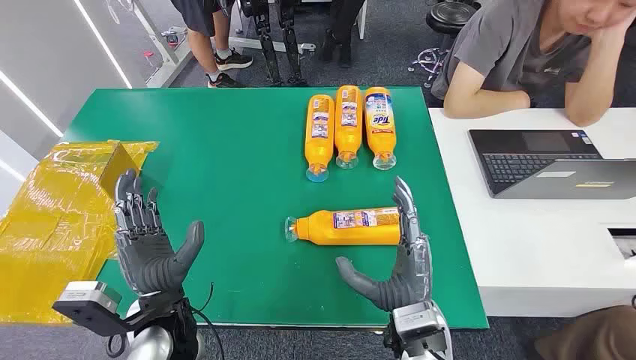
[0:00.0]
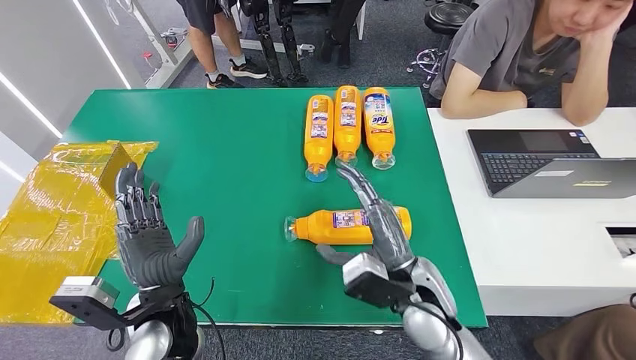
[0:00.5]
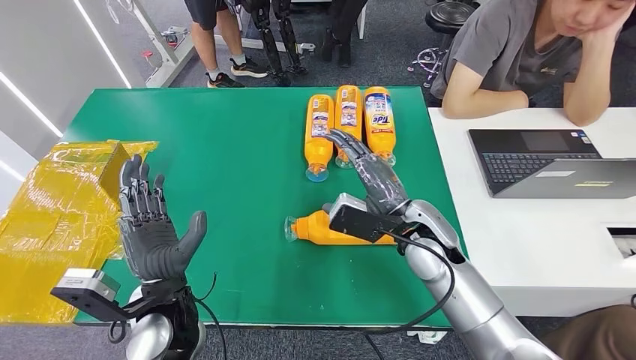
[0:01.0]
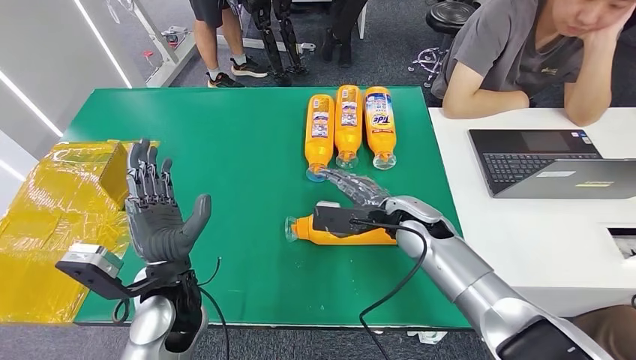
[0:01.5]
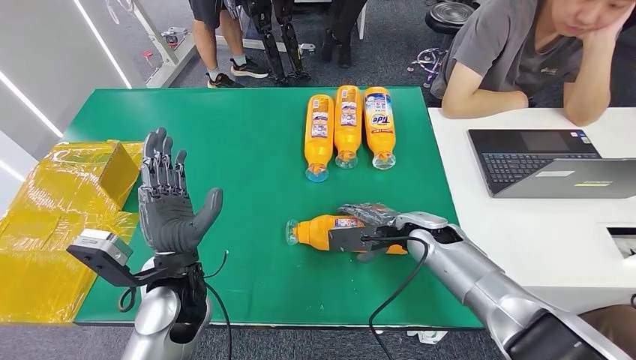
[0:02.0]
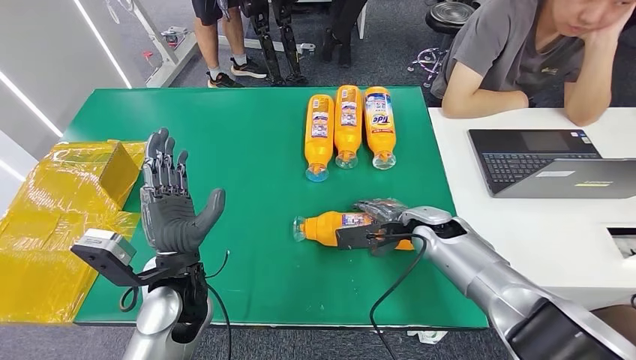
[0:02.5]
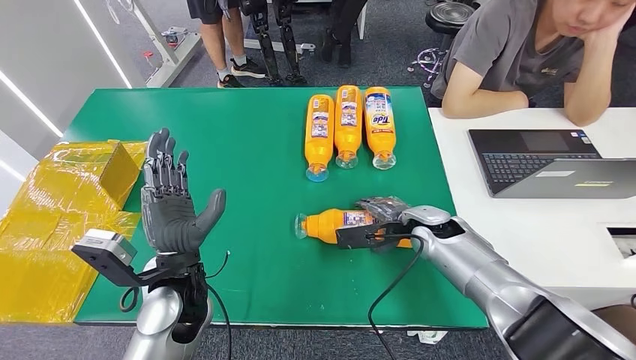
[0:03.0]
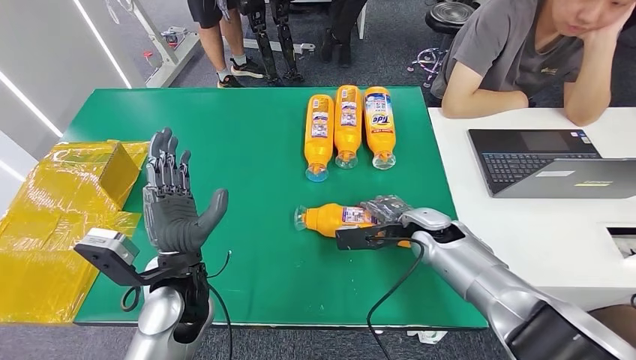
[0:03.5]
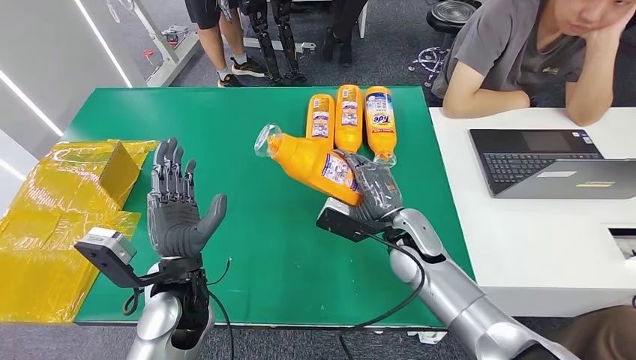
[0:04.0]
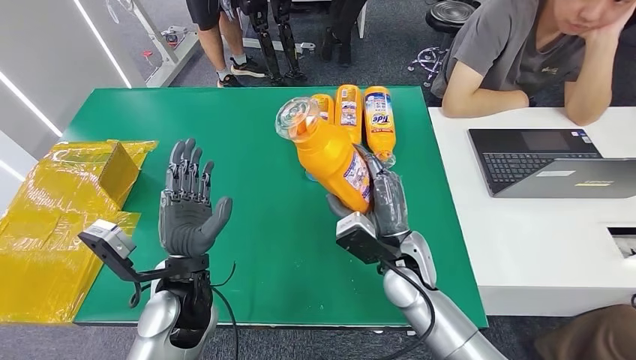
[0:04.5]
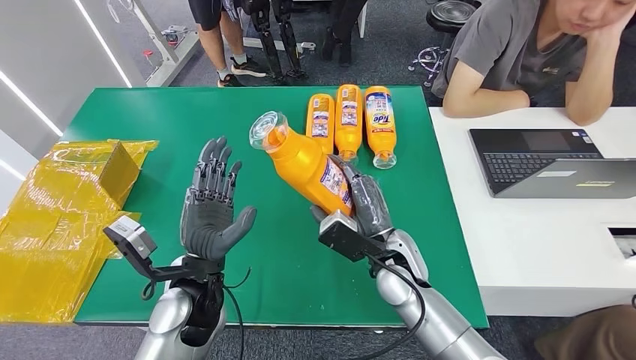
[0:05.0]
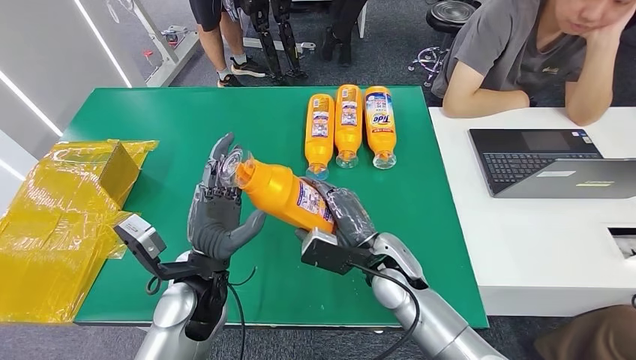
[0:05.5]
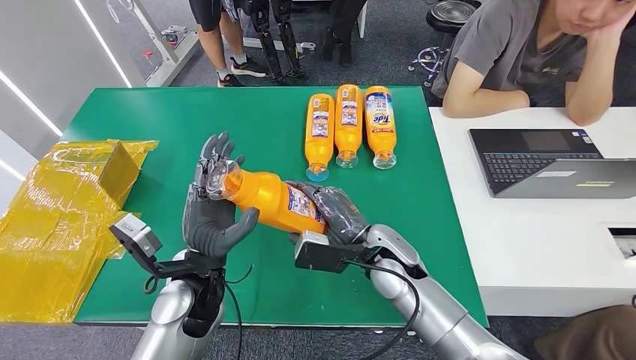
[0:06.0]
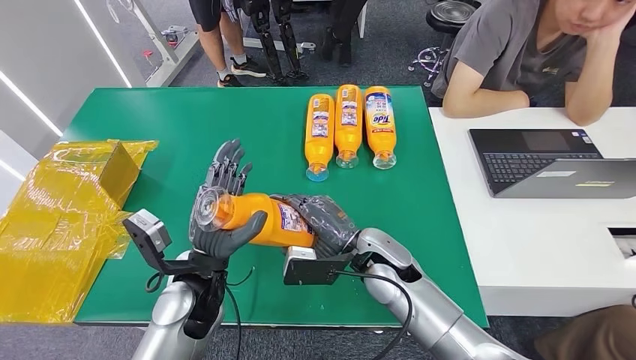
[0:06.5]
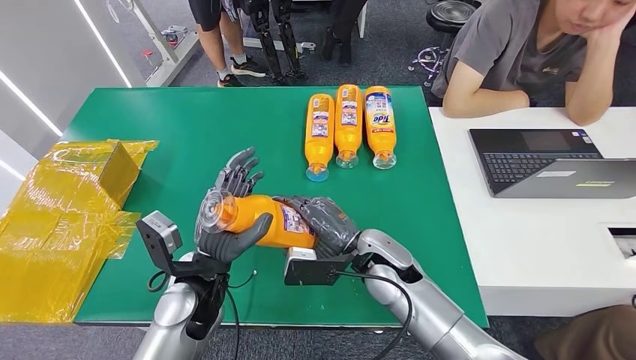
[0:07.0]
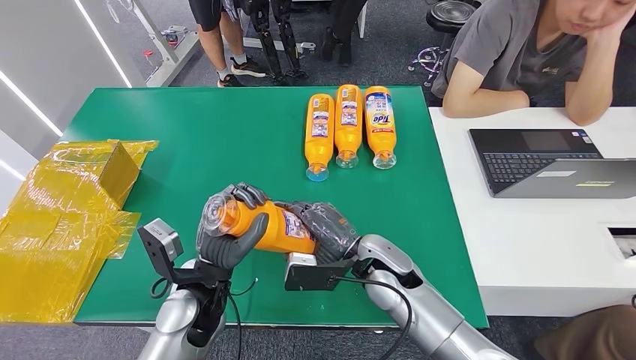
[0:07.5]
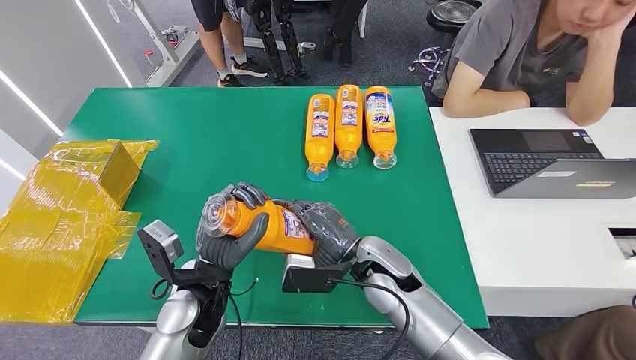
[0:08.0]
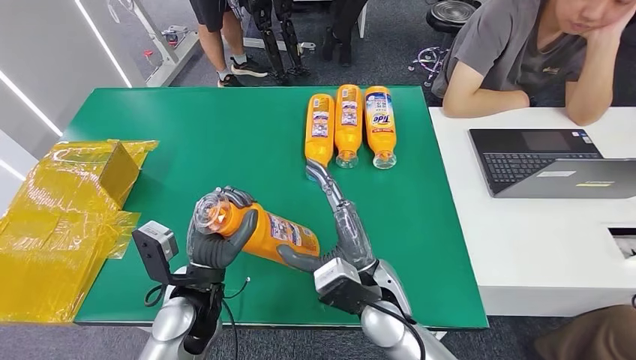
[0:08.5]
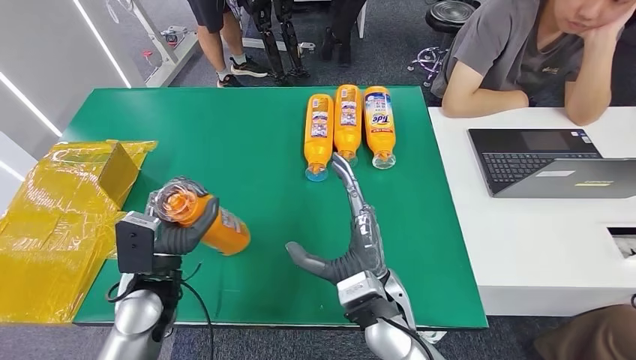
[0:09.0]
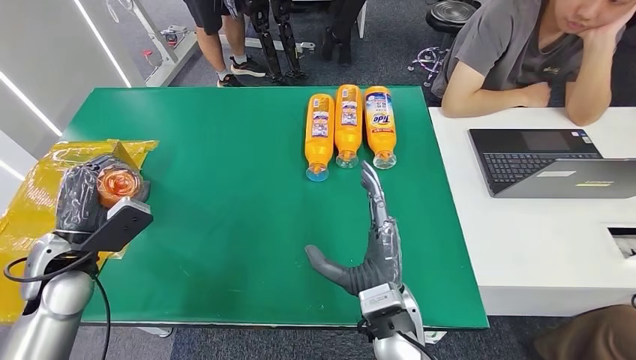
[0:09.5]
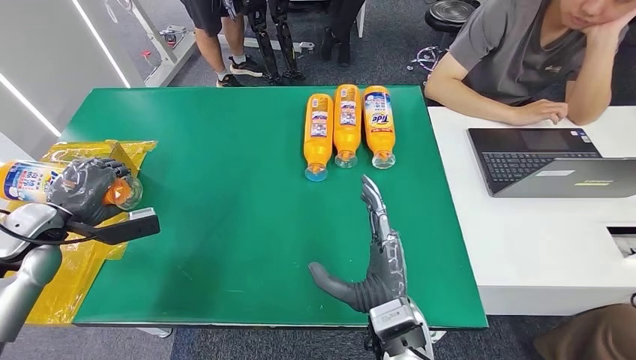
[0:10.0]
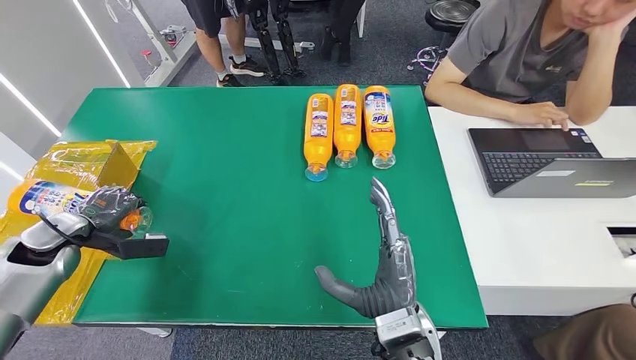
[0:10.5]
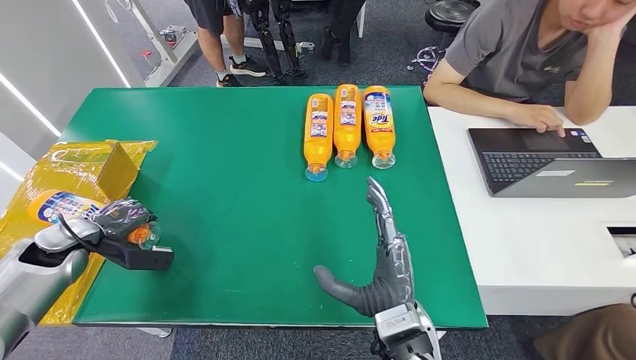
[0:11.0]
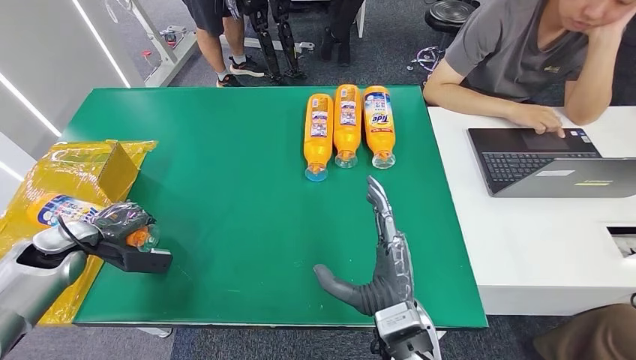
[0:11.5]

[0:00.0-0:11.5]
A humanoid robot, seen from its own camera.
Step, 0:00.0 to 0:06.0: Pick up the bottle from the table.
0:02.0 to 0:04.0: The right hand changes place by about 5 cm.
0:04.0 to 0:06.0: The right hand goes about 5 cm to the left.
0:06.0 to 0:07.5: The hands move only a little.
0:07.5 to 0:09.5: The left hand heads to the left, covering roughly 20 cm. The right hand travels backward by approximately 10 cm.
0:09.5 to 0:11.5: The left hand shifts some 15 cm to the left, downward and forward.

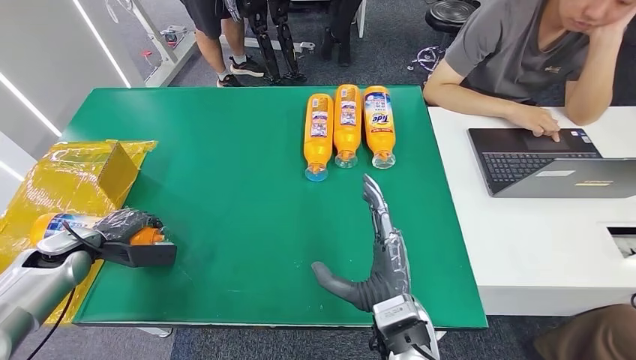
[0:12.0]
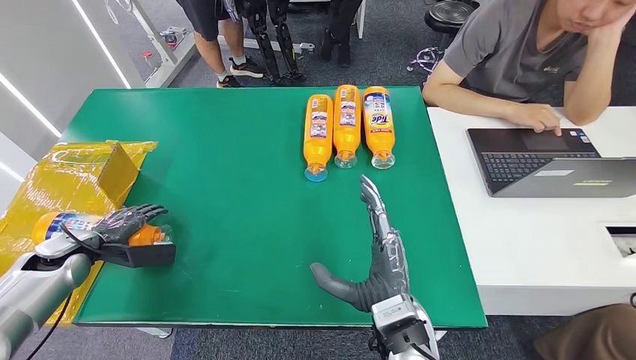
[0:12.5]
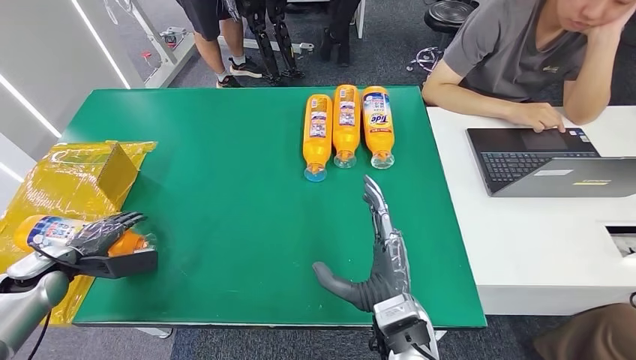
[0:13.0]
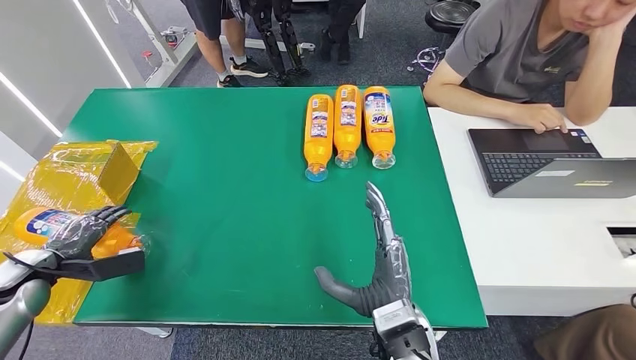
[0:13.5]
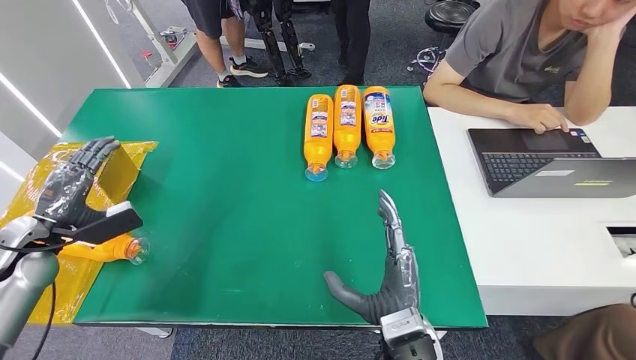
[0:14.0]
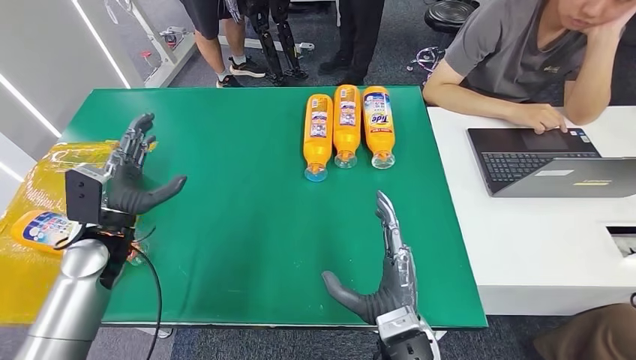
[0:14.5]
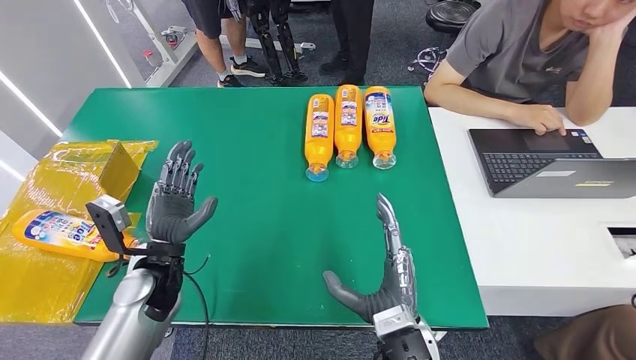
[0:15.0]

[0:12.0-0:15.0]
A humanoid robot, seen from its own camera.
Step, 0:12.0 to 0:15.0: Turn the bottle to the front side.
0:12.0 to 0:13.5: The left hand moves backward, roughly 5 cm.
0:13.5 to 0:15.0: The left hand heads to the right, covering approximately 25 cm.

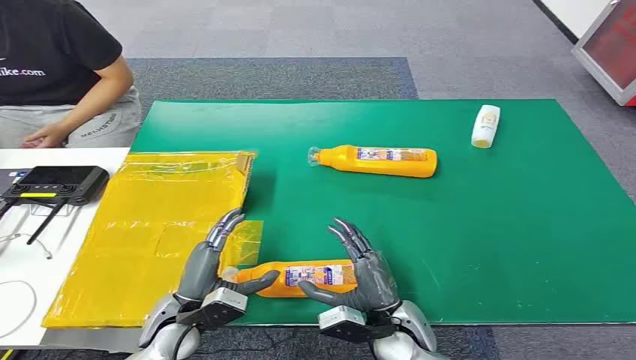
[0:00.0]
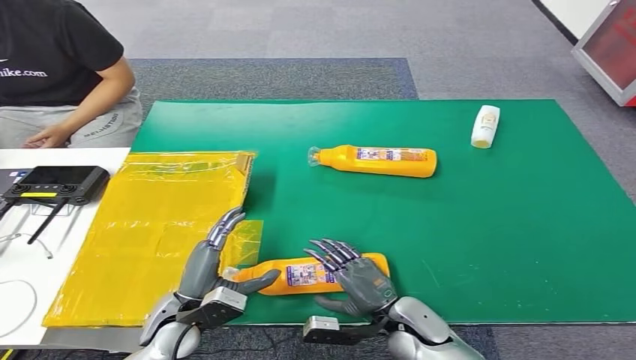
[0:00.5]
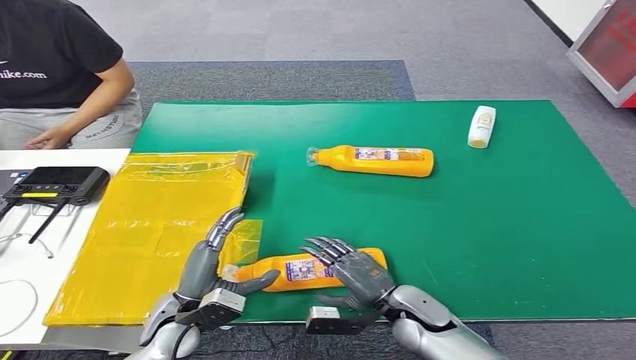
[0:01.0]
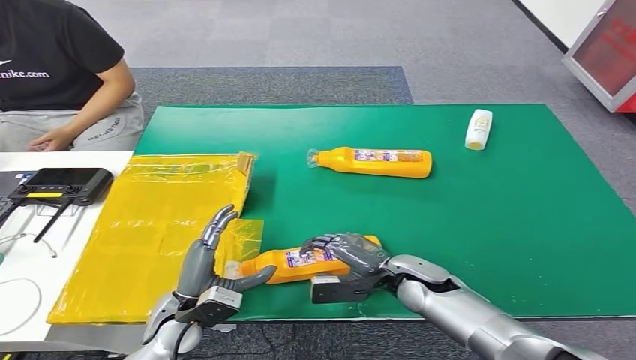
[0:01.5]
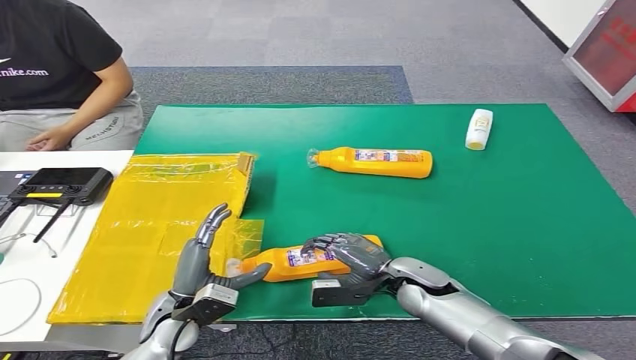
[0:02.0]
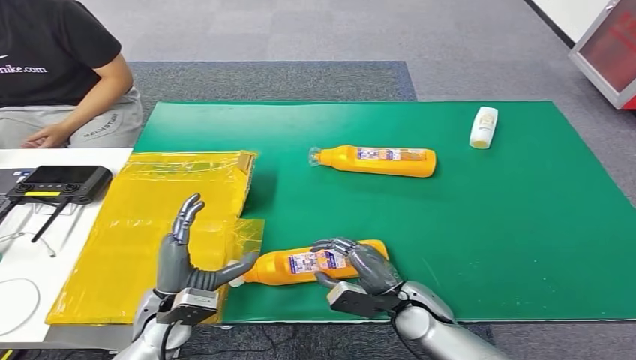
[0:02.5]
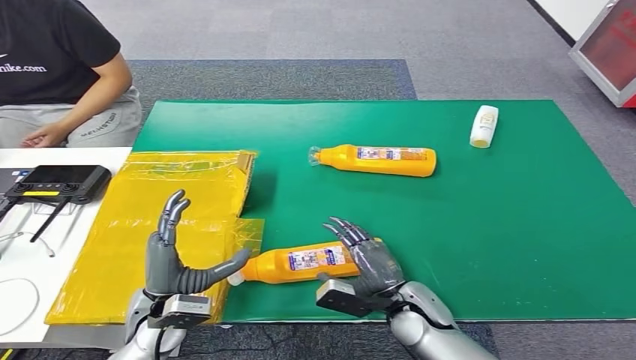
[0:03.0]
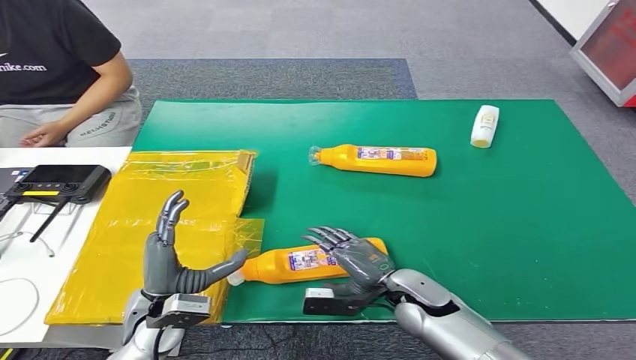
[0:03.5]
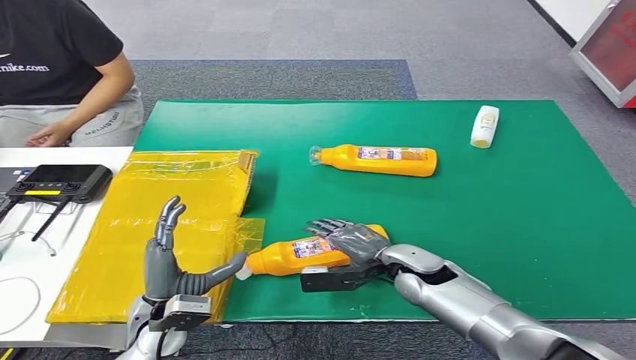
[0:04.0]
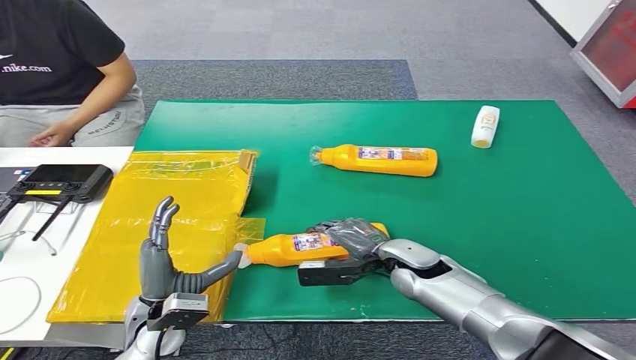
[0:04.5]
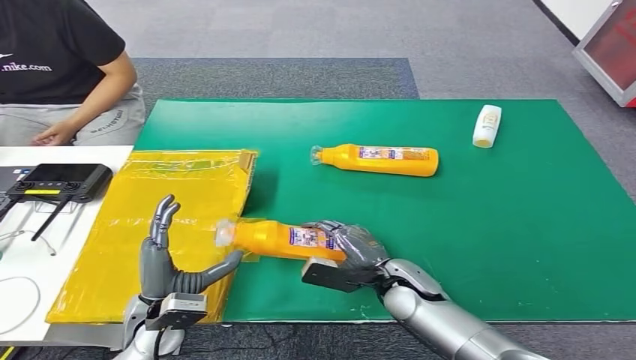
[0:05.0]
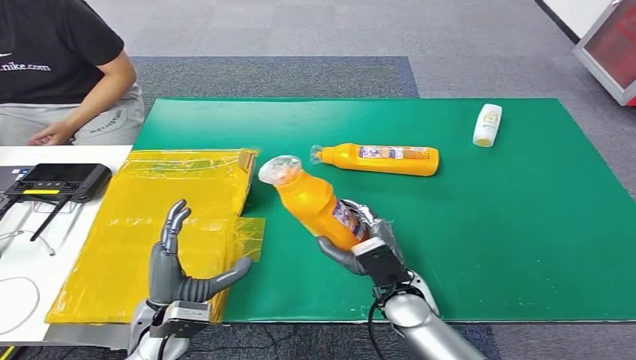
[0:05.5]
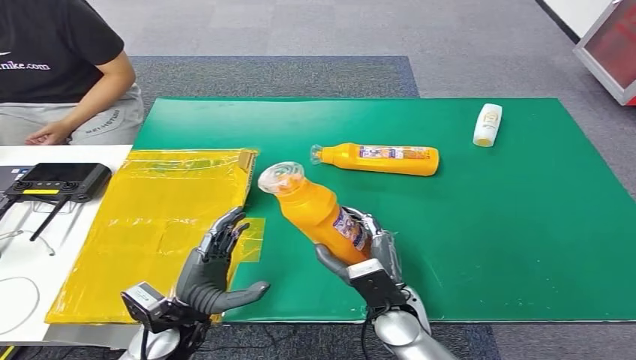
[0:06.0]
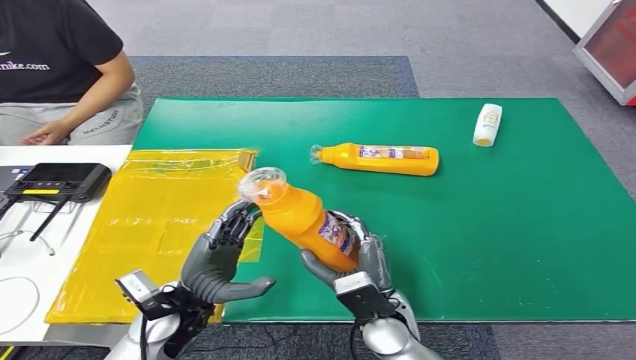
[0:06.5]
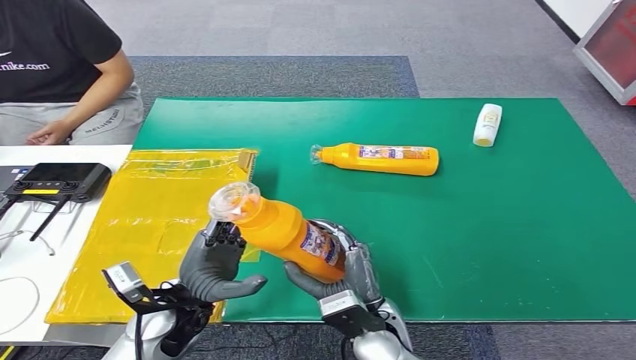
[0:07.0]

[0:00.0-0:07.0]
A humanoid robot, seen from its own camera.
Step, 0:00.0 to 0:05.5: Pick up the bottle from the table.
0:05.0 to 0:07.0: The left hand ends up roughly 5 cm from where it was, while the right hand is displaced backward and to the left by approximately 10 cm.
